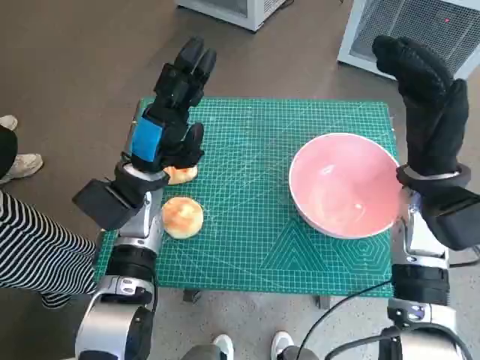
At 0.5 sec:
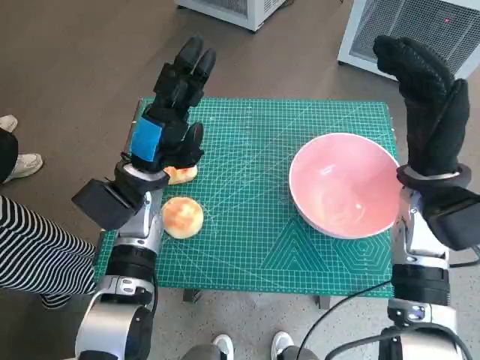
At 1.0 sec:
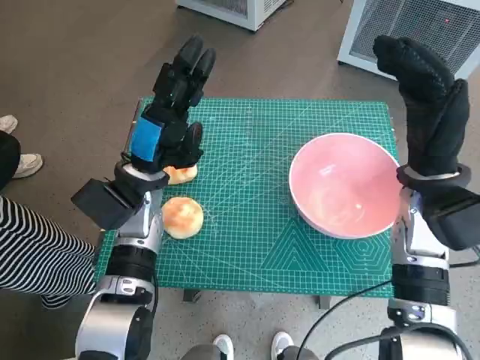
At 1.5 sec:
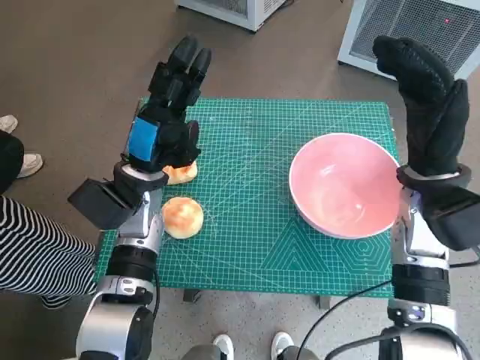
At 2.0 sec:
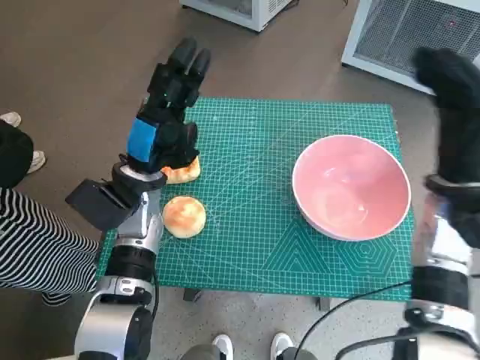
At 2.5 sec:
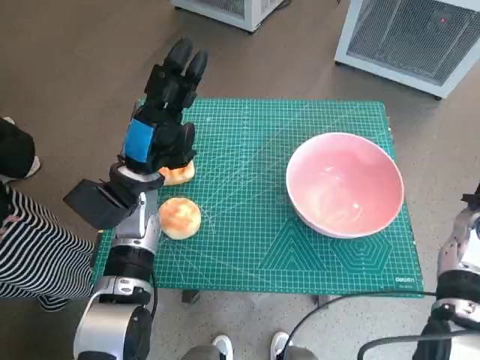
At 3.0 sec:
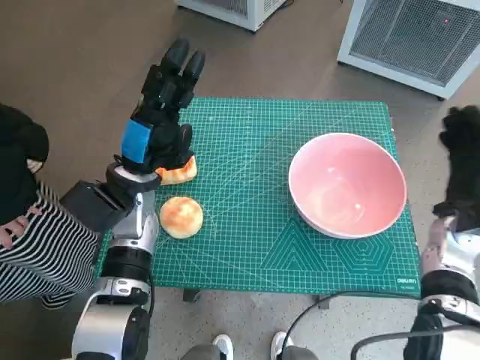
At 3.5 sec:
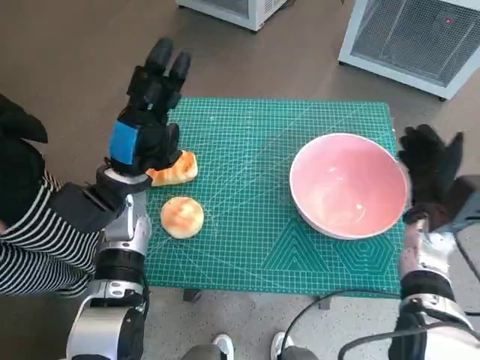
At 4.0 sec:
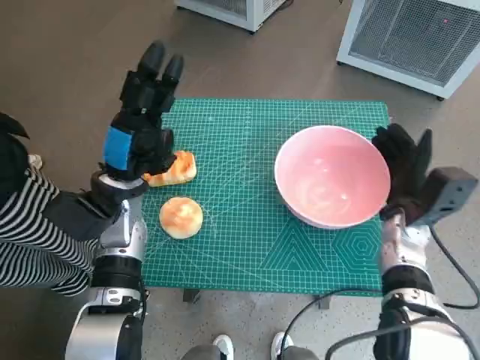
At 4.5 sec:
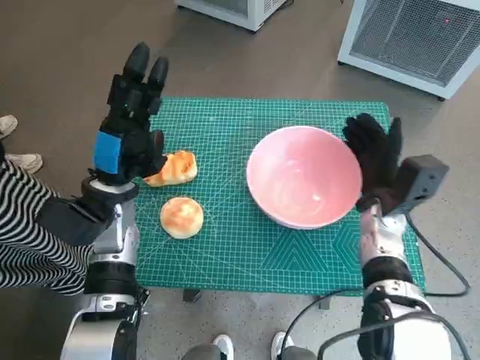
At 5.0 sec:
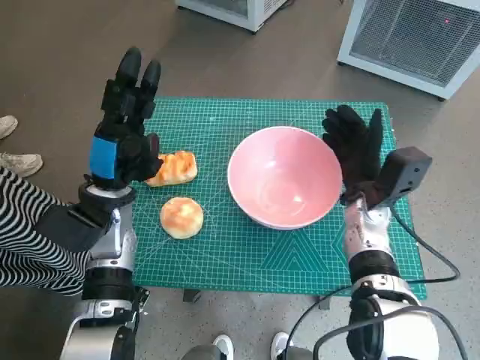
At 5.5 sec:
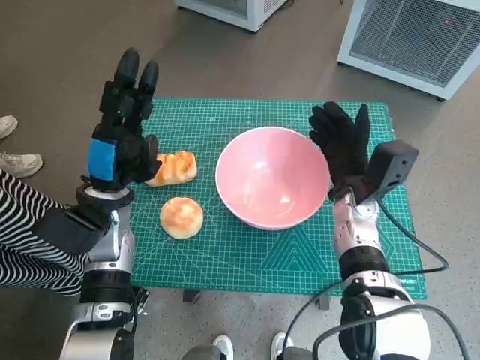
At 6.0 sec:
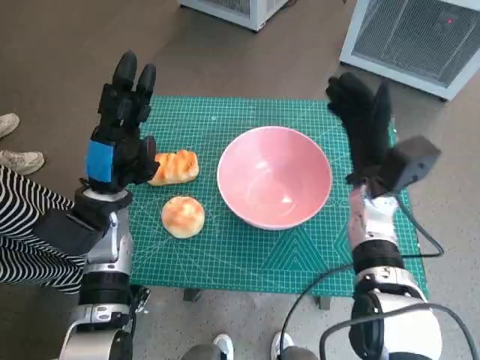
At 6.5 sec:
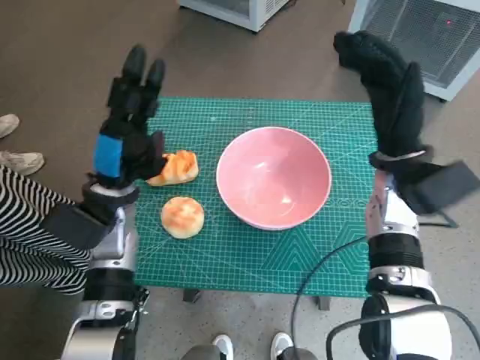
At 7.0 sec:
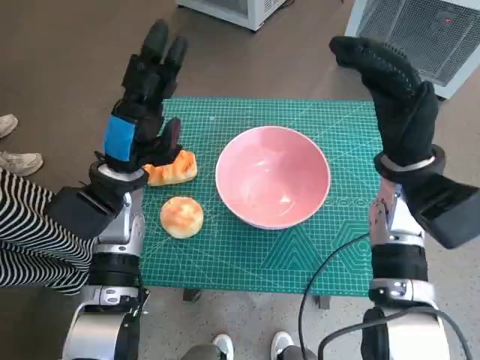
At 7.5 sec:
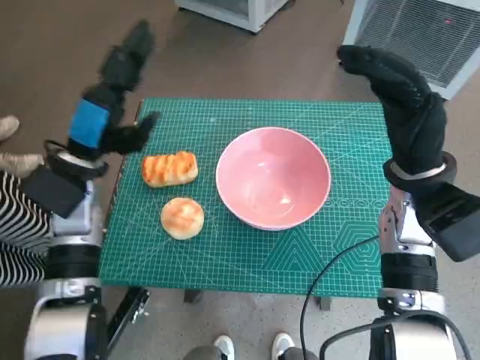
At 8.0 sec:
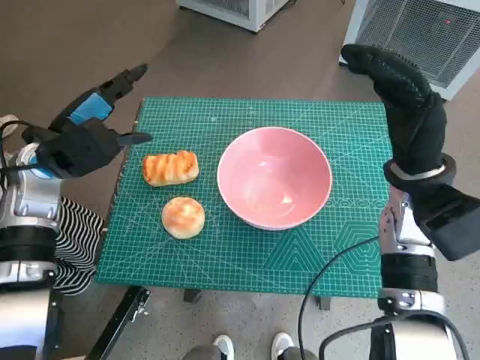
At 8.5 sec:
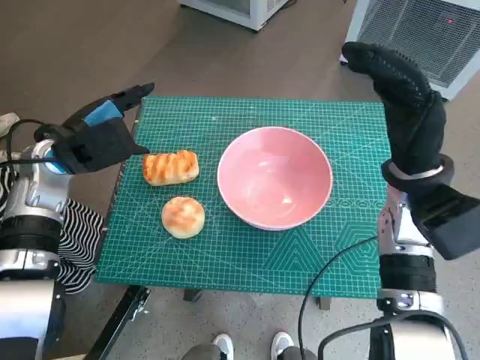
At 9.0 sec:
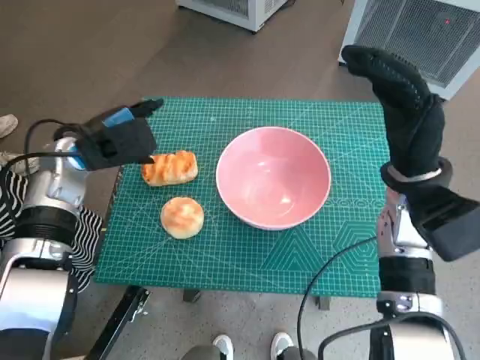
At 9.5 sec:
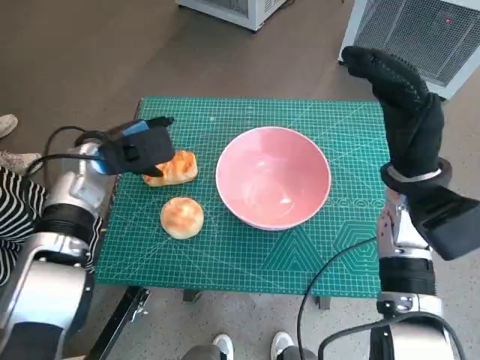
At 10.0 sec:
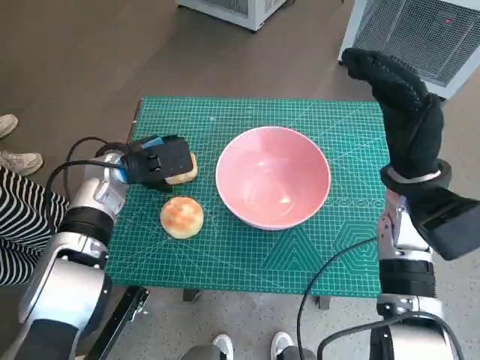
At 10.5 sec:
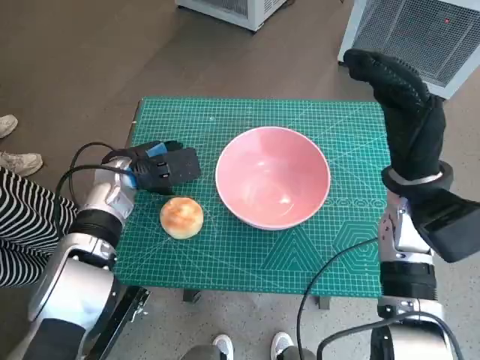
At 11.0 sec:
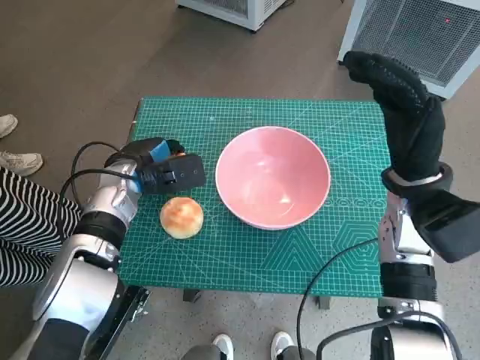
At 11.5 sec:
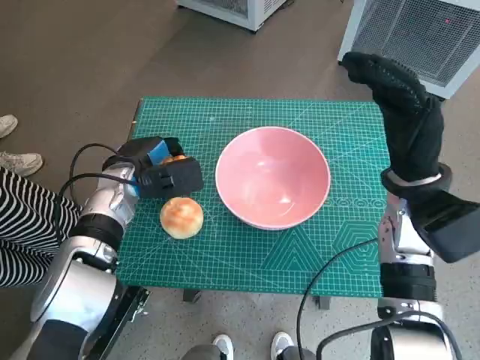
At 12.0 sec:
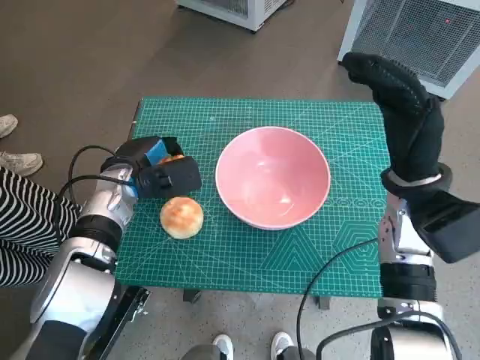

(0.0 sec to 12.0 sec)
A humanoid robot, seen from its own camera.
Task of the whole recording: Push the bowl into the center of the table and put the bread into the bowl.
Step, 0.0 sec - 5.5 sec: Move the pink bowl to the center of table with right hand.
Step, 6.0 sec - 10.5 sec: Grasp the long bread with left hand.
2.0 sec - 4.0 sec: The right hand goes some 10 cm downward.
4.0 sec - 6.0 sec: The right hand moves to the left, some 5 cm.
6.0 sec - 8.0 sec: The left hand heads upward and to the left, covering approximately 10 cm, while the right hand heads upward, covering some 5 cm.
8.0 sec - 10.0 sec: The left hand goes approximately 10 cm downward and to the right.
10.0 sec - 12.0 sec: The hands make only small movements.

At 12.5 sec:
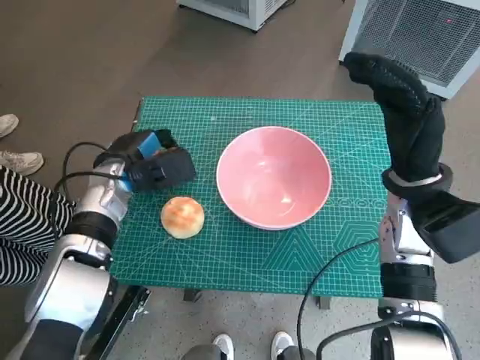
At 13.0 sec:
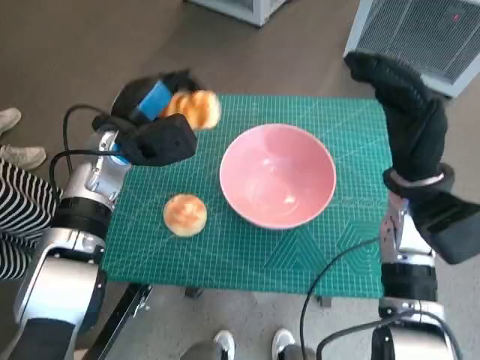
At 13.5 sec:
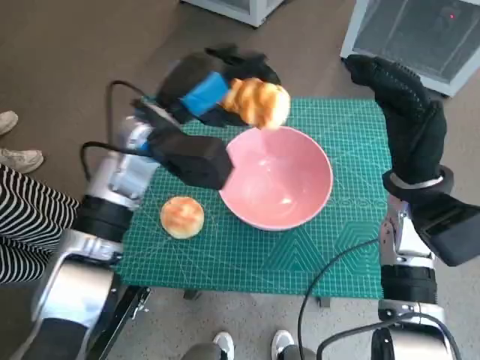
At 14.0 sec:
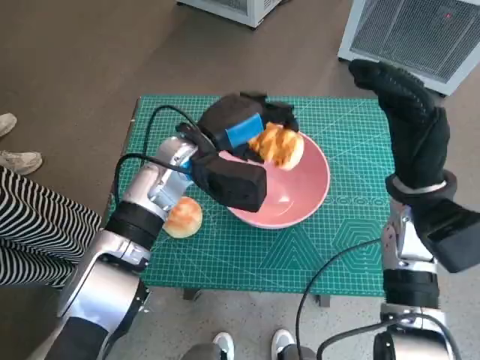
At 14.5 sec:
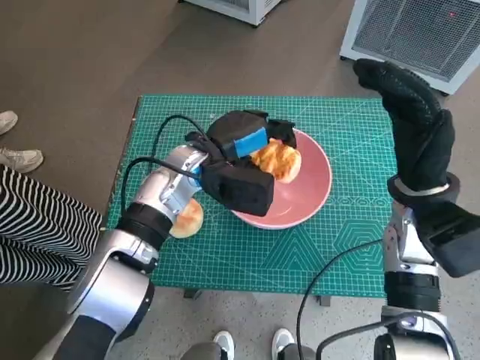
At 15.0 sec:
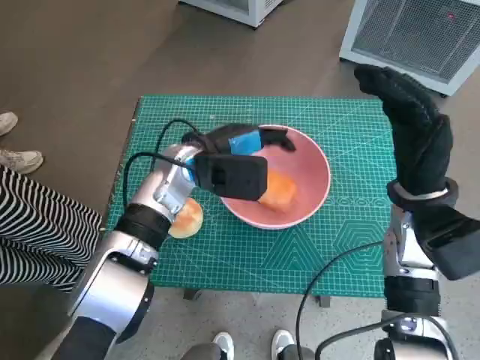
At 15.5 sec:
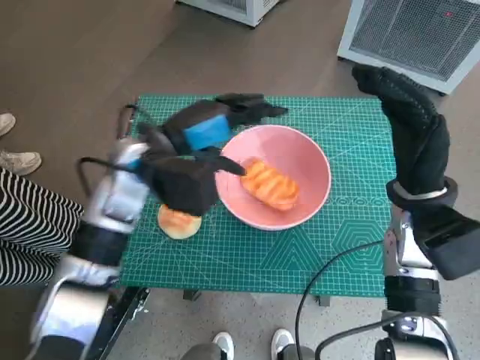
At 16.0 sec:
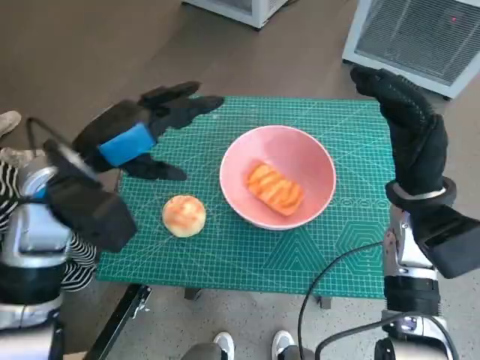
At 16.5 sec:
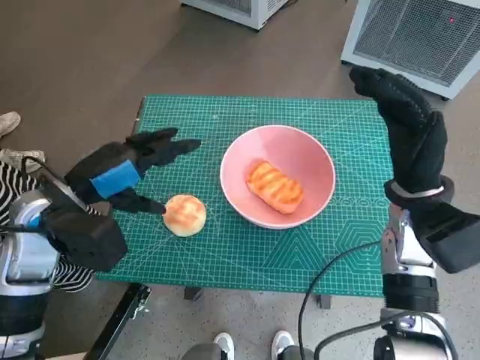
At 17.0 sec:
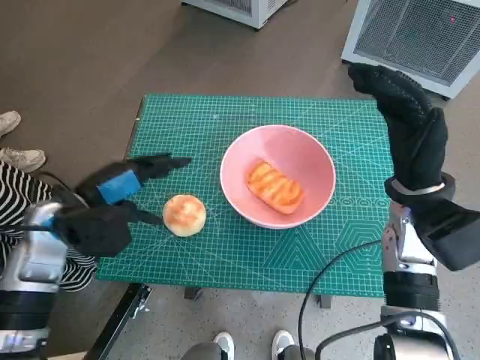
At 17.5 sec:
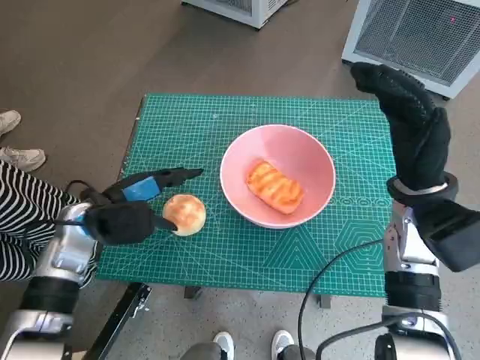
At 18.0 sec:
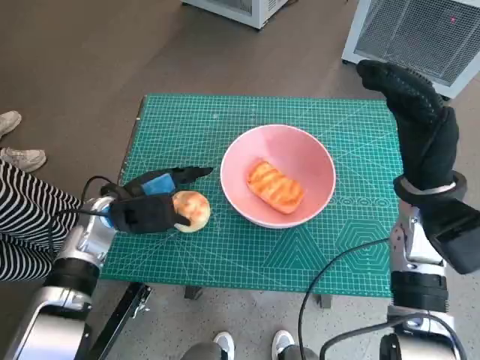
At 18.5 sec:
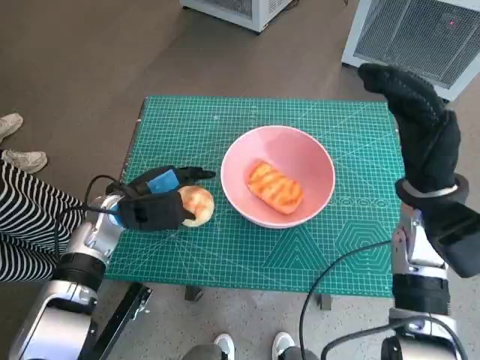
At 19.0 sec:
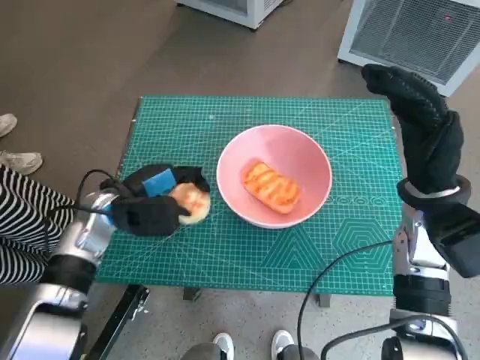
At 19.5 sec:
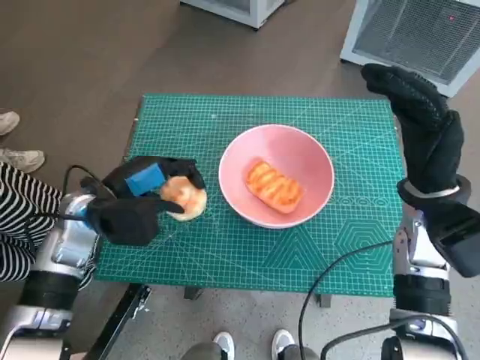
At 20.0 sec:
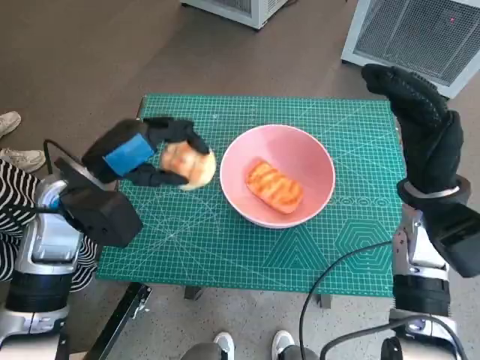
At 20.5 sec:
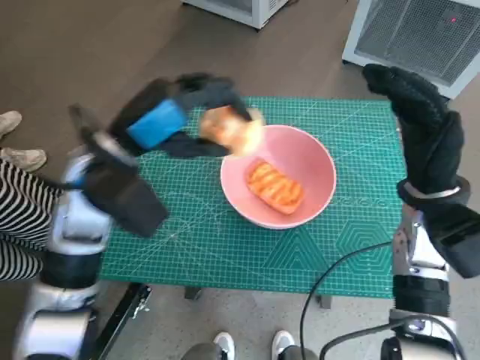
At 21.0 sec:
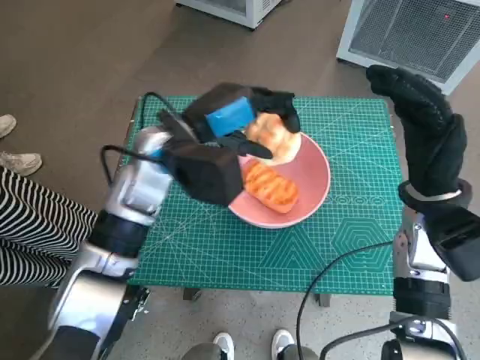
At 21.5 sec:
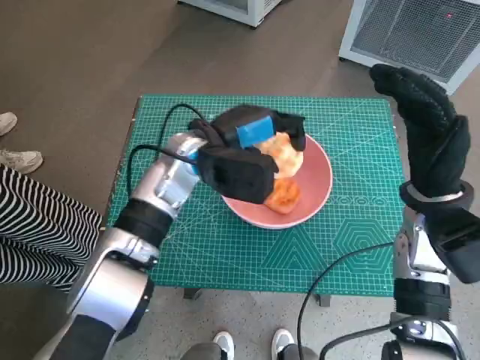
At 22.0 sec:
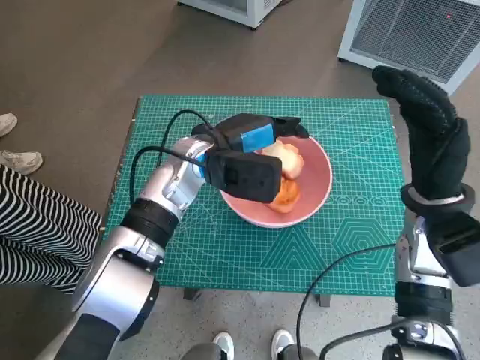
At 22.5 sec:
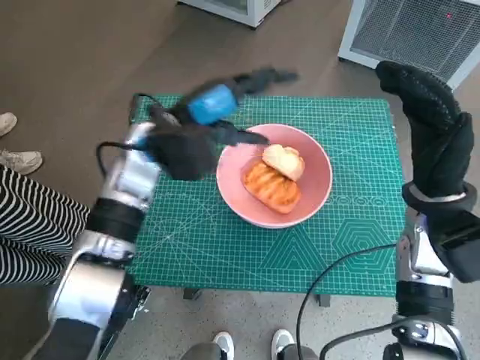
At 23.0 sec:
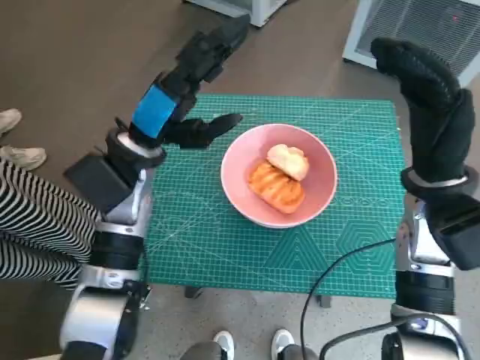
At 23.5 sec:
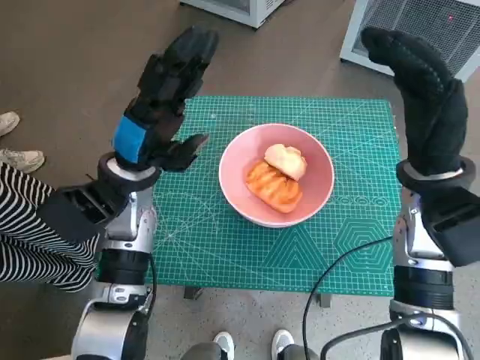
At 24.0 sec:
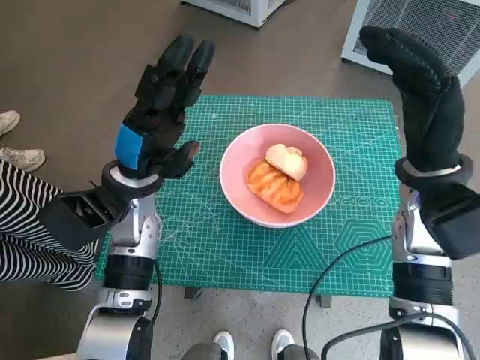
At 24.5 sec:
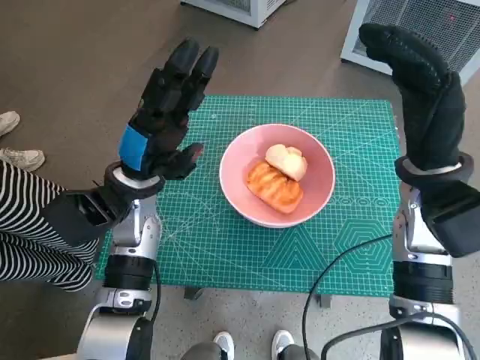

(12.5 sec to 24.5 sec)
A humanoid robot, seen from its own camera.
Task of the whole recording: Push the bowl into the center of the table and put the bread into the bowl.
Step, 12.5 sec - 15.0 sec: Place the long bread in pink bowl with left hand.
Step, 15.5 sec - 18.5 sec: Grasp the round bread with left hand.
Step, 19.0 sec - 22.0 sec: Place the round bread in pink bowl with left hand.
12.5 sec - 14.5 sec: The left hand is displaced to the right by some 10 cm.
14.5 sec - 16.5 sec: The left hand is displaced to the left and backward by some 15 cm.
16.5 sec - 18.5 sec: The left hand travels downward and forward by some 10 cm.
18.5 sec - 20.5 sec: The left hand heads upward, covering approximately 15 cm.
20.5 sec - 22.5 sec: The left hand travels forward and to the right by approximately 10 cm.
22.5 sec - 24.5 sec: The left hand is displaced downward by some 5 cm.

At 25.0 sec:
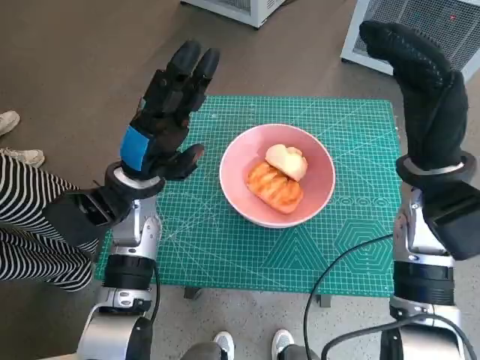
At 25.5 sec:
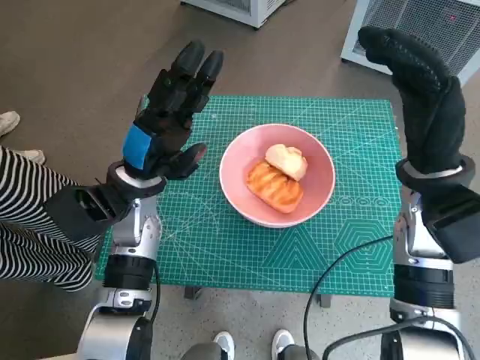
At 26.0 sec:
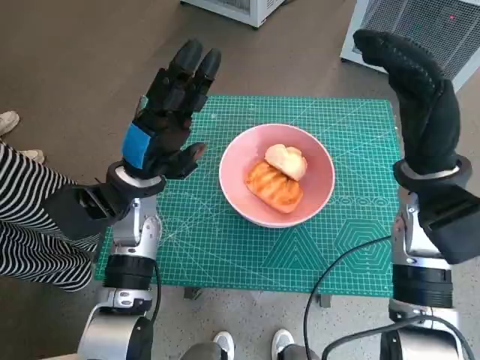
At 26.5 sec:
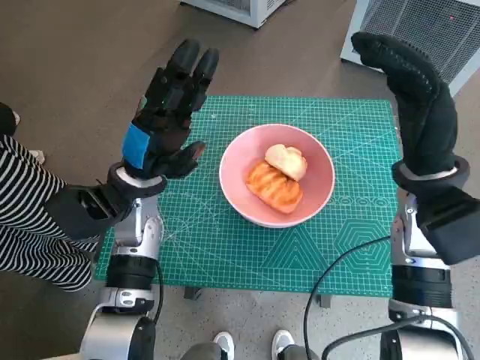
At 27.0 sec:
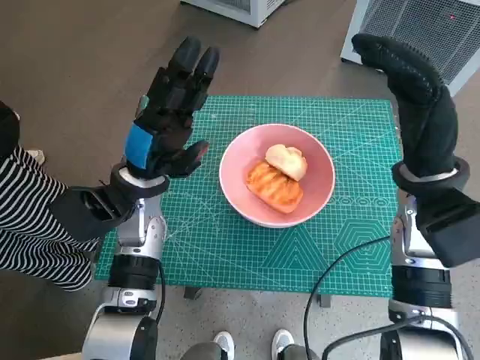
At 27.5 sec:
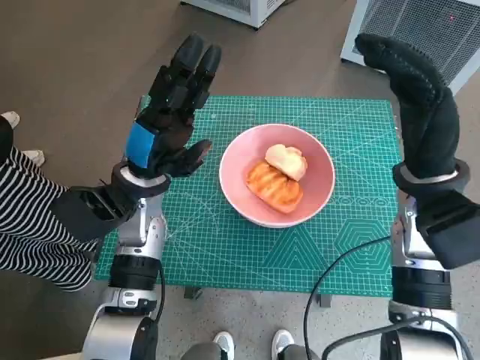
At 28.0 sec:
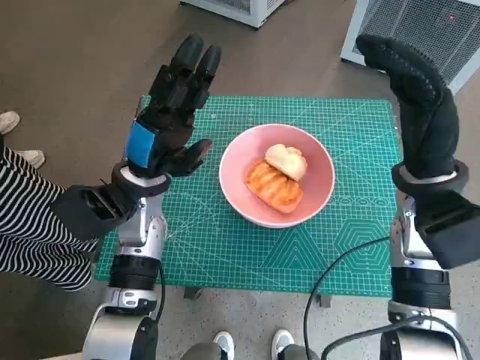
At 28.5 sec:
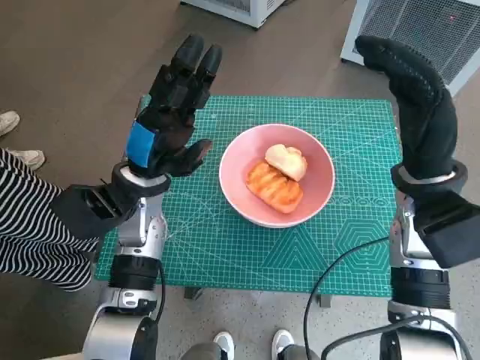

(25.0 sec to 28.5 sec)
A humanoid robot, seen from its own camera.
Task of the whole recording: Push the bowl into the center of the table and put the bread into the bowl.
25.0 sec - 28.5 sec: The two hands keep their place.
